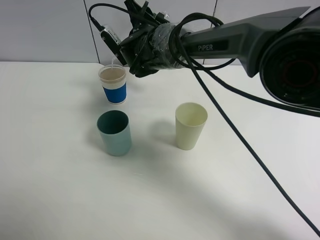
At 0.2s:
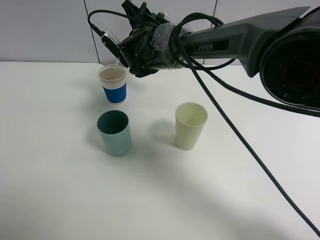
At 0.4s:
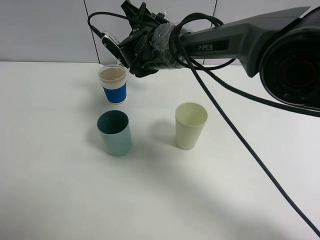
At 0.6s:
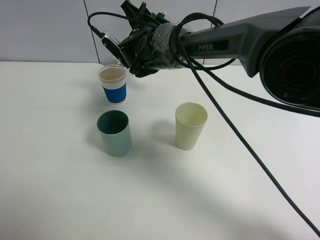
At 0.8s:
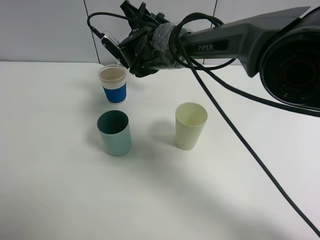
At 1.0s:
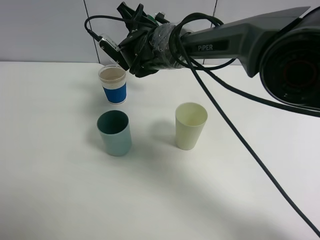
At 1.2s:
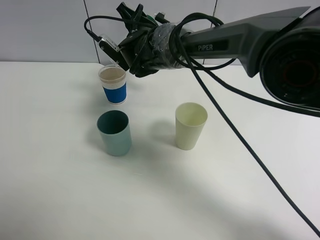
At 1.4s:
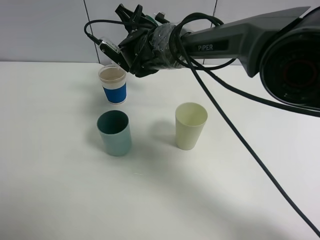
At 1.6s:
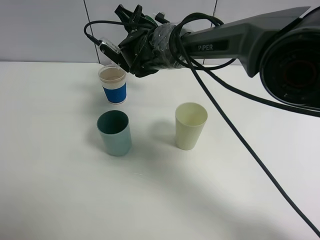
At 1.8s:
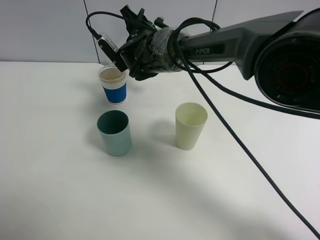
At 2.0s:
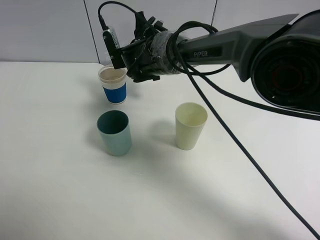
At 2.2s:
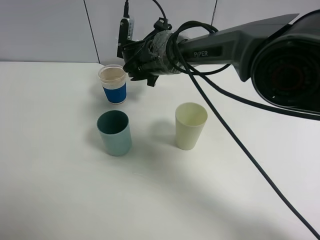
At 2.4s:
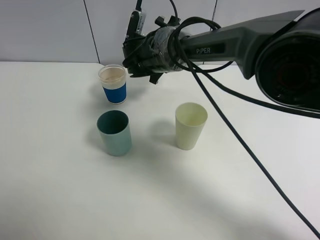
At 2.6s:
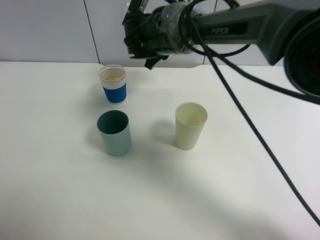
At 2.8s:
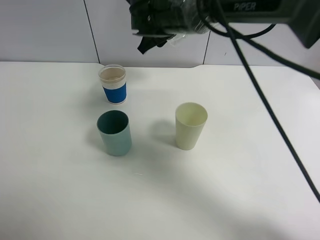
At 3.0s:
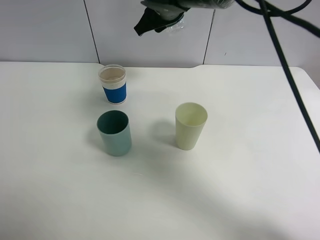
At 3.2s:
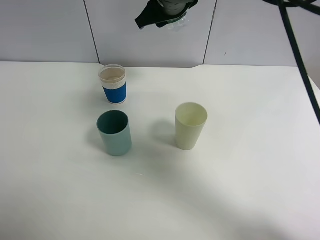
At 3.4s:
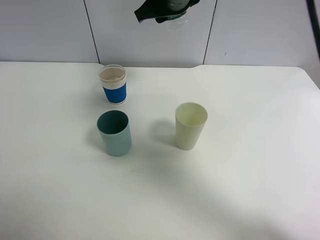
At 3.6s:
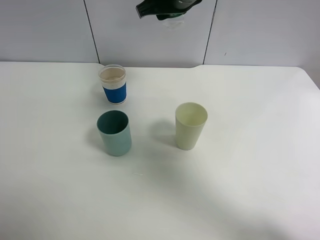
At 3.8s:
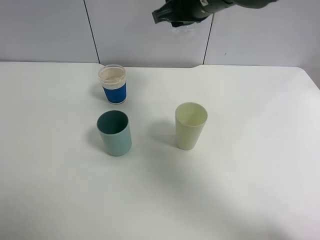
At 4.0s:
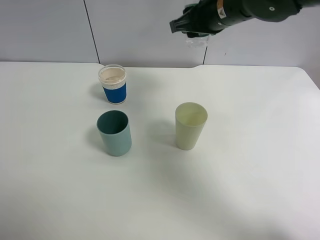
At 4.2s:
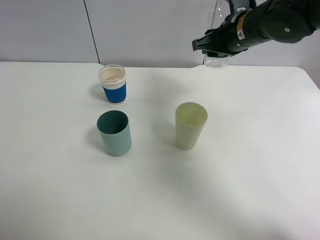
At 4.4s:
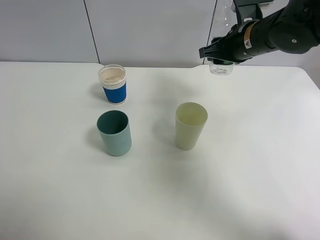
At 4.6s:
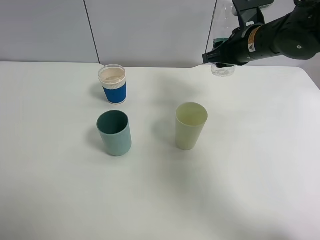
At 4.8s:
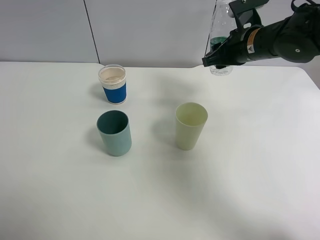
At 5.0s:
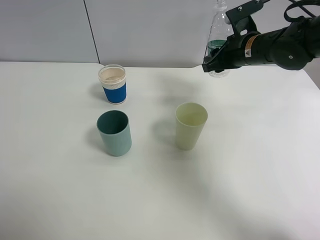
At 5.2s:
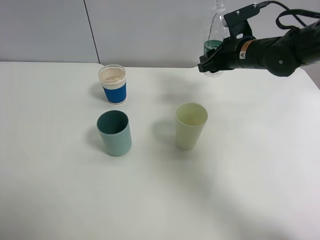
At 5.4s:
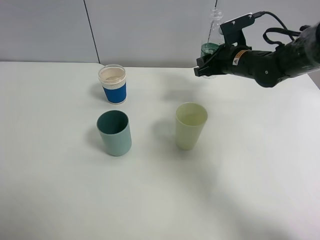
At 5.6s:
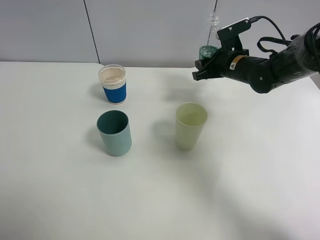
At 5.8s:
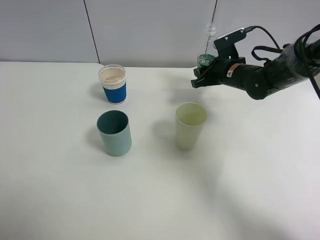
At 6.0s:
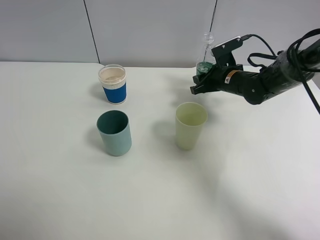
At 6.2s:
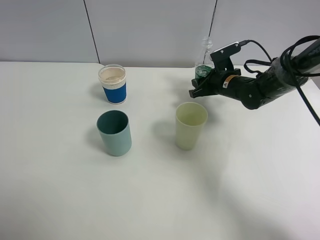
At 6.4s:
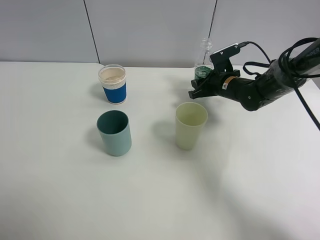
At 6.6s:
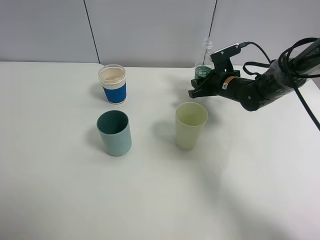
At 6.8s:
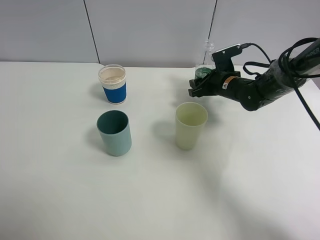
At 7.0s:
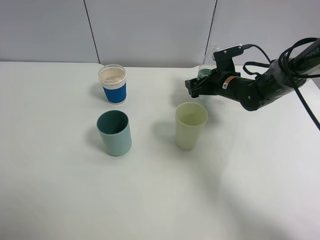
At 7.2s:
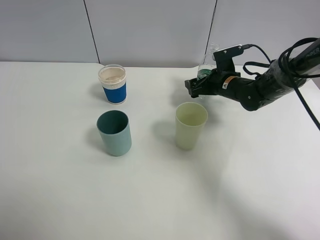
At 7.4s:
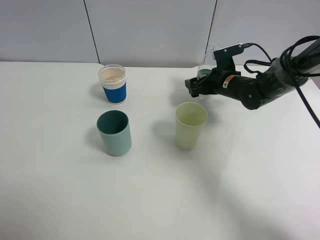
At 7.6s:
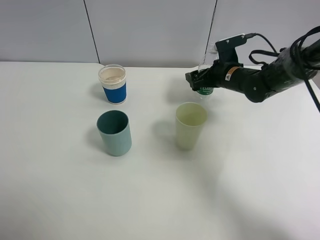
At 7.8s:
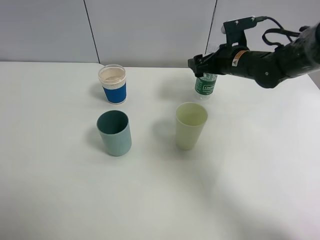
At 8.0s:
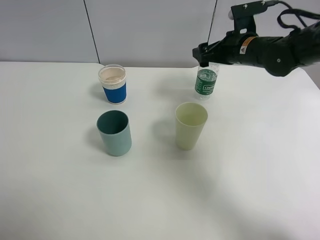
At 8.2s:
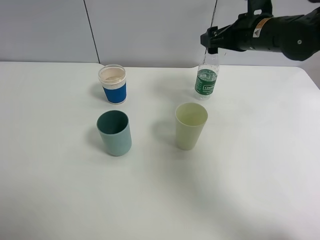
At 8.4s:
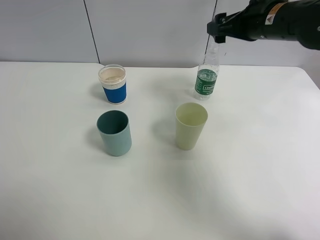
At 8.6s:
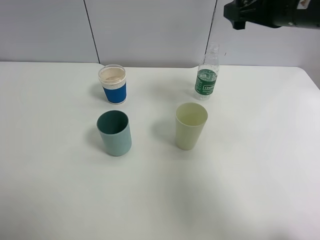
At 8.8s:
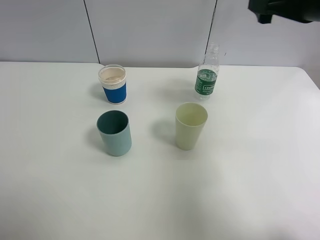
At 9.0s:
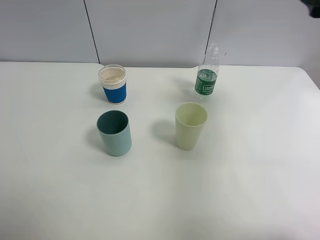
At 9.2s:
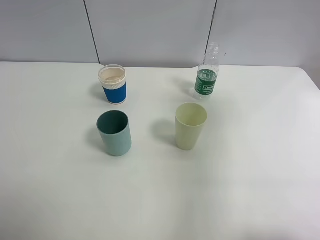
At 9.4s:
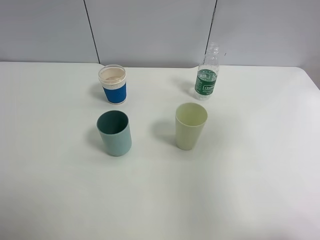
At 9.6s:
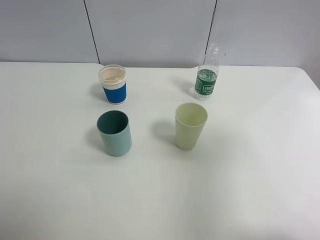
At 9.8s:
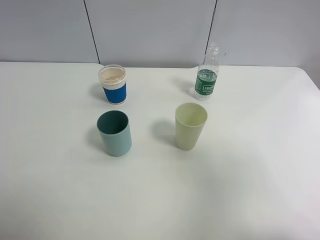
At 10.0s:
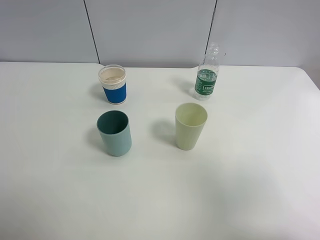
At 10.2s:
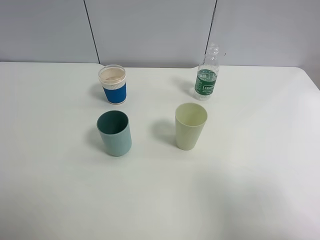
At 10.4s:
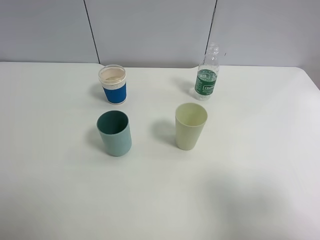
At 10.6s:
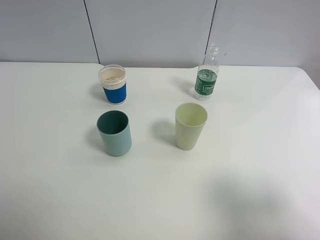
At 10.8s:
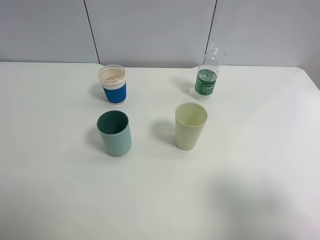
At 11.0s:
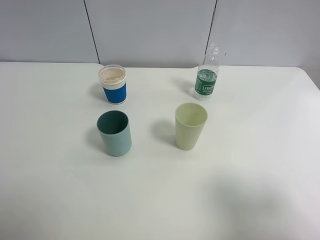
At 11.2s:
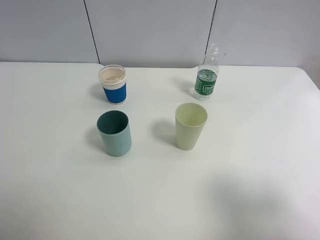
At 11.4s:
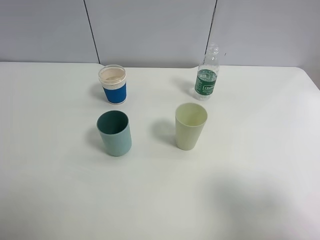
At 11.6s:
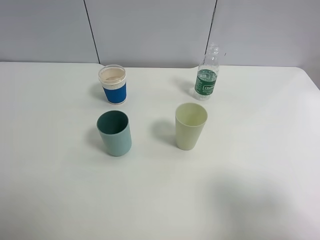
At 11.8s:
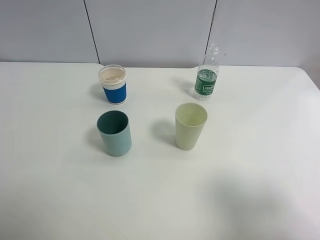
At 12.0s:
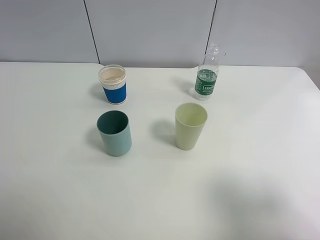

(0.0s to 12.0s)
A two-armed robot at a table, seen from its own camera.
Task of the whole recording: use a clamp to hold the bottle of the drink, pour the beverage into a random cup, then clamp the cup containing the drink and pour the drink into another random cup.
Step, 0.0s - 2.6s: Pour water into the paper cup with right gripper.
Step, 2.8s - 8.0s: Place the water bottle on the table with right gripper.
0.0s - 1.6s: The grippers make only small movements.
1.6s - 3.0s: The right gripper heads upward, covering approximately 10 cm.
3.0s - 4.4s: The right gripper travels to the right by approximately 15 cm.
4.4s - 6.0s: The right gripper moves downward, about 15 cm.
6.0s - 7.6s: The right gripper opens.
7.6s - 9.0s: The right gripper travels upward, backward and to the right by some 30 cm.
9.0s - 10.4s: The right gripper goes some 25 cm backward.

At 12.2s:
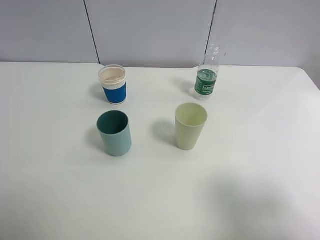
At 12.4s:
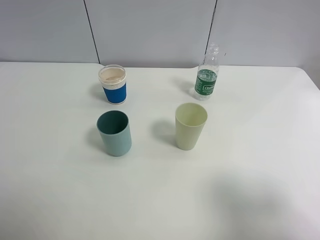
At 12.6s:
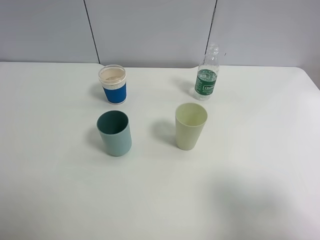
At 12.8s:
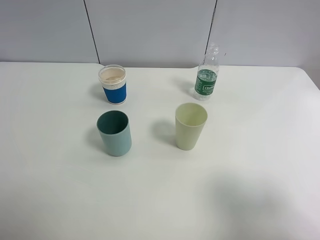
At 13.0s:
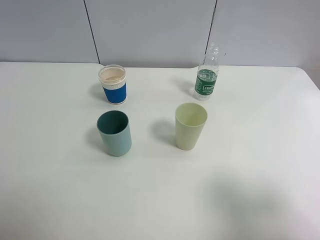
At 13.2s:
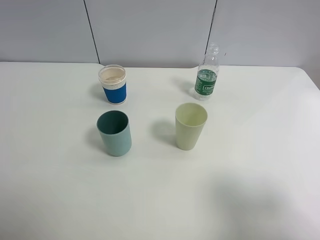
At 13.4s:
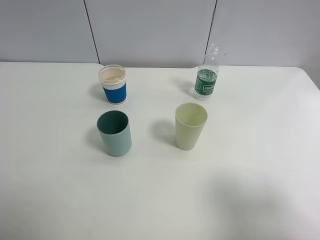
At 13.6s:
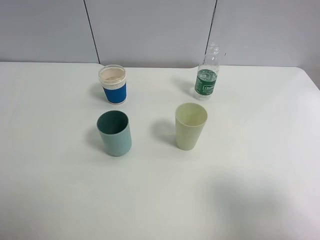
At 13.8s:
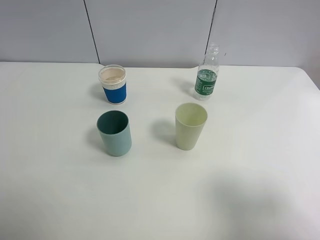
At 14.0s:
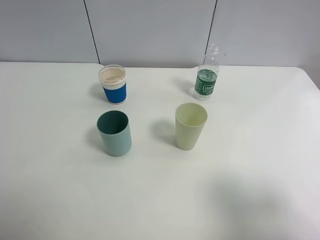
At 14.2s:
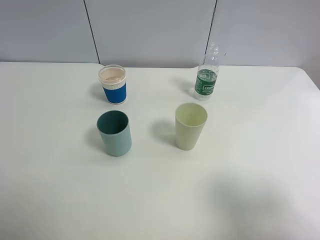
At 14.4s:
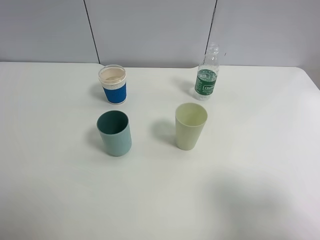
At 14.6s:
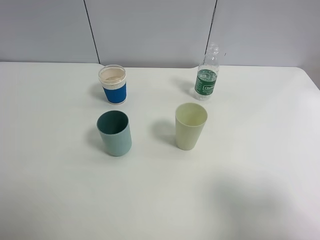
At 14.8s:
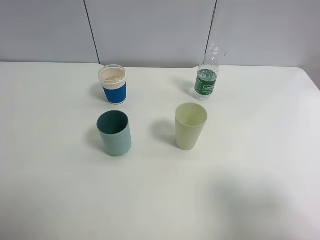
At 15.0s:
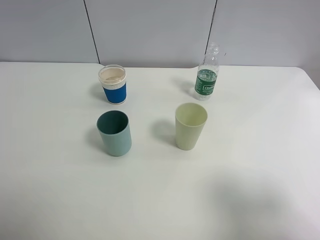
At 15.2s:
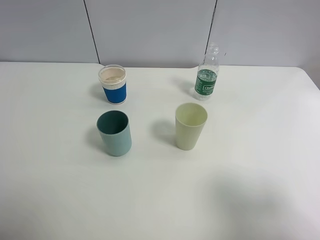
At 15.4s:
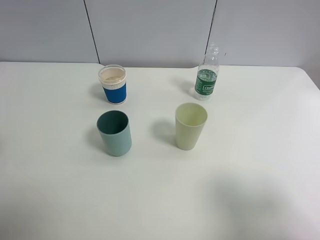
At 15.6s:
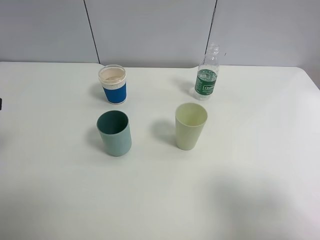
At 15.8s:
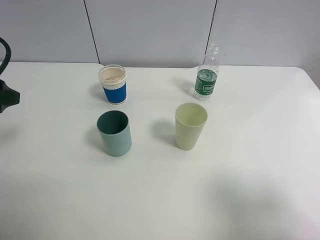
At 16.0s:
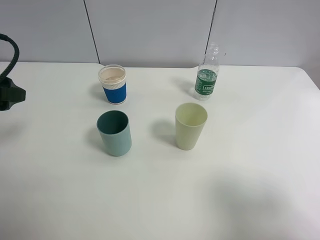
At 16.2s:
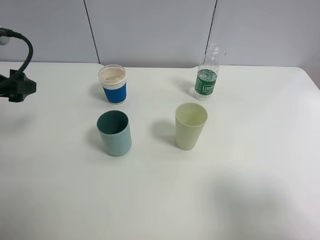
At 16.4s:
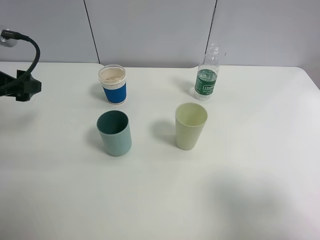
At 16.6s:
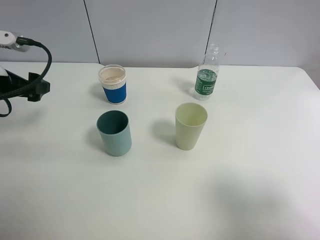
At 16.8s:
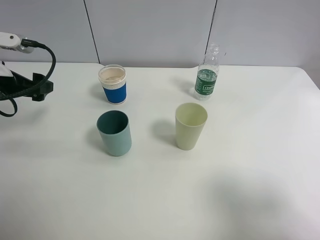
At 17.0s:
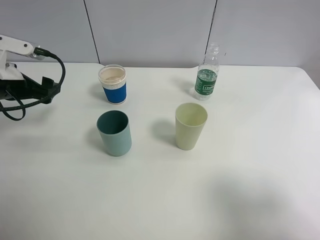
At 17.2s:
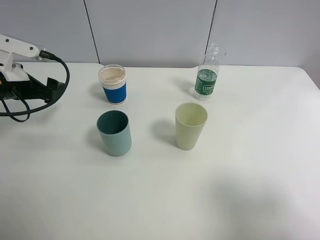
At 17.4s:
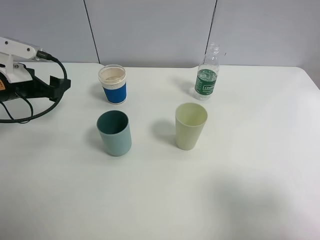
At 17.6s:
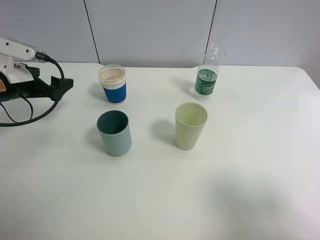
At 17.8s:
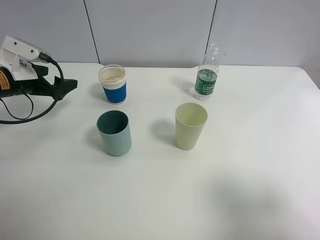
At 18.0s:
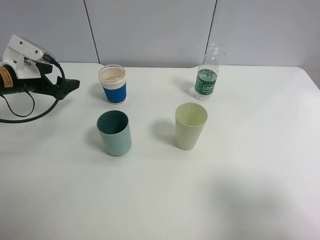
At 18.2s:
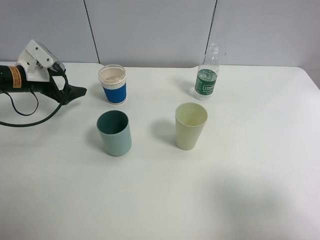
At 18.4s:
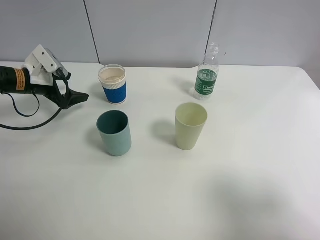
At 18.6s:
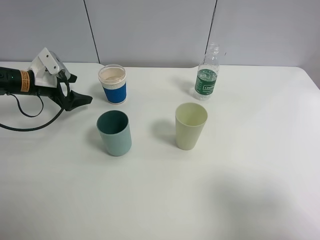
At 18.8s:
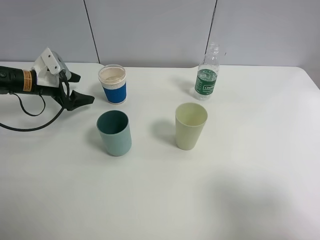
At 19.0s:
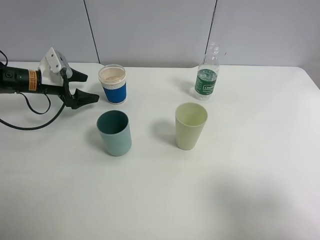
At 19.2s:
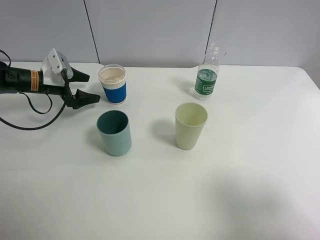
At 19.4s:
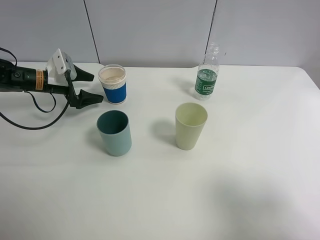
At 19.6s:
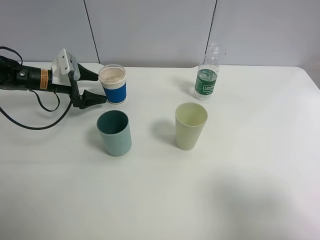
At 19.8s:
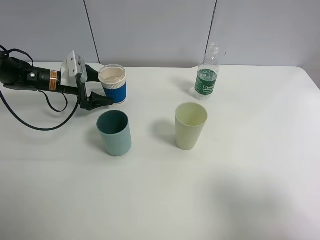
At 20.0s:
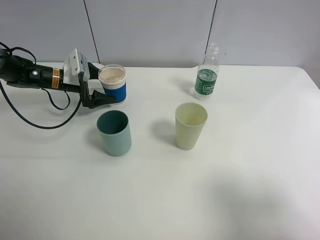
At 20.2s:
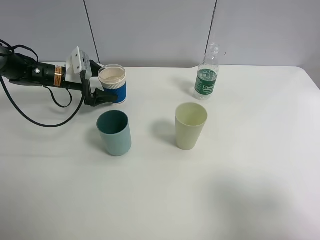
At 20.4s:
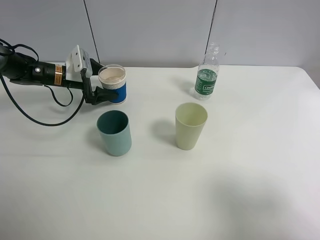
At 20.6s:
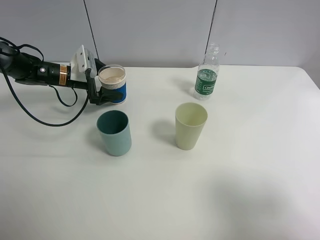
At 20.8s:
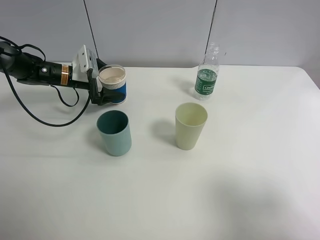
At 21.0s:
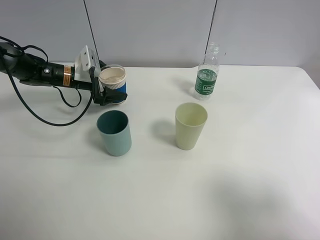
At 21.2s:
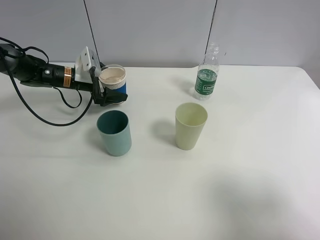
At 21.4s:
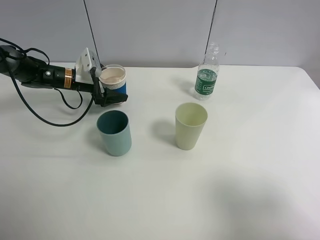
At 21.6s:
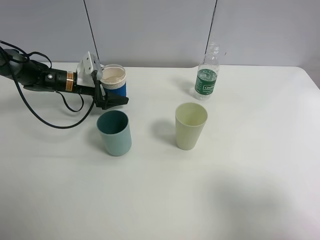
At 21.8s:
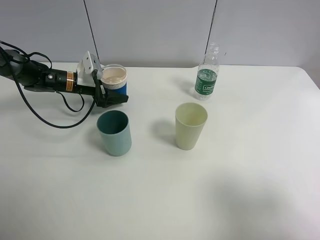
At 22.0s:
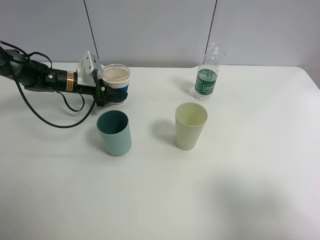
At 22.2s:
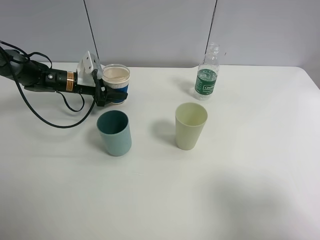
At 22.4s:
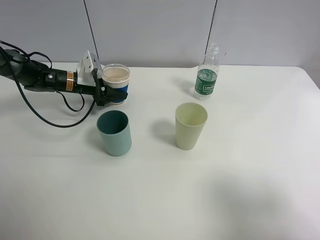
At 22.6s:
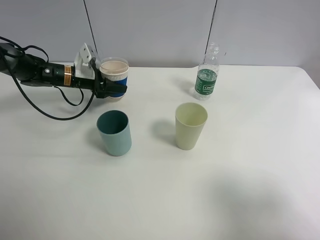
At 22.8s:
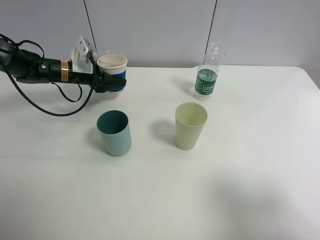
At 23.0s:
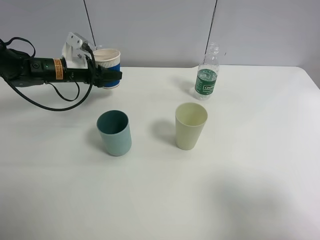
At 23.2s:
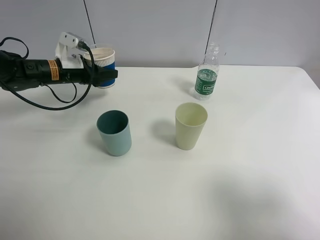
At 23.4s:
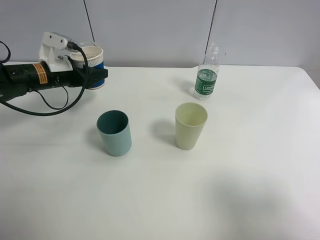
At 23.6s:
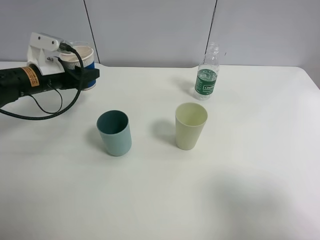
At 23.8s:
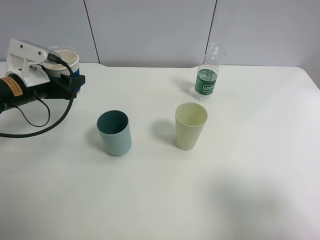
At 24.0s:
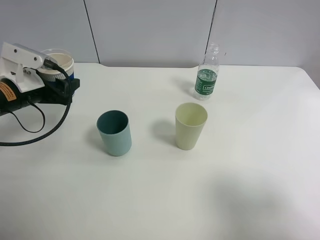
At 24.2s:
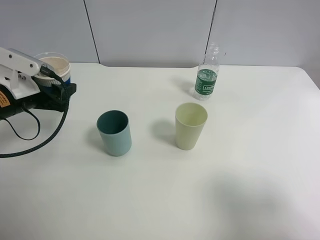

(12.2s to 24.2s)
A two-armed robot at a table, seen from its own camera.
Task of the whole recording: use a clamp to hold the bottle of the drink, pour the beverage into a random cup, then clamp the cup containing the drink and pour the drink into another random cup.
Step, 12.2s - 22.8s: Pick up the paper cup with left gripper.
12.2s - 13.8s: The two grippers keep their place.
15.2s - 16.6s: The left gripper moves forward and downward, roughly 20 cm.
16.6s - 18.2s: The left gripper is displaced forward and downward by roughly 15 cm.
18.2s - 19.8s: The left gripper goes some 10 cm forward and downward.
19.8s - 21.2s: There are only small adjustments of the grippers.
21.2s - 22.6s: The left gripper closes its fingers.
22.6s - 24.2s: The left gripper goes some 20 cm backward and upward.
